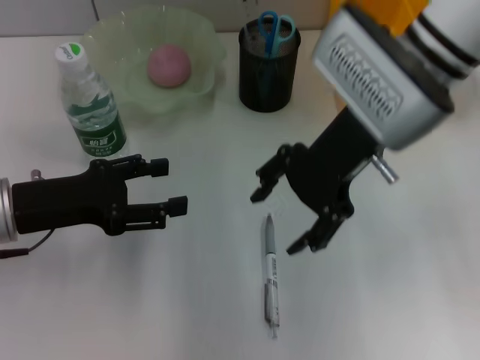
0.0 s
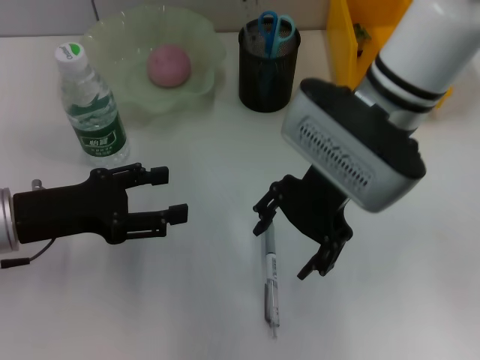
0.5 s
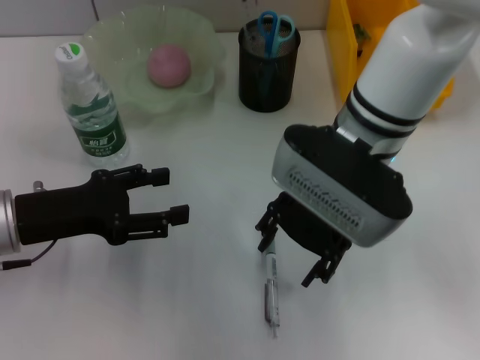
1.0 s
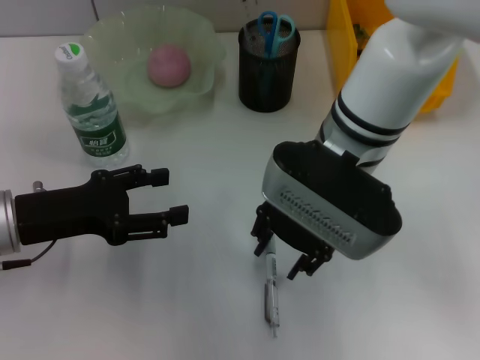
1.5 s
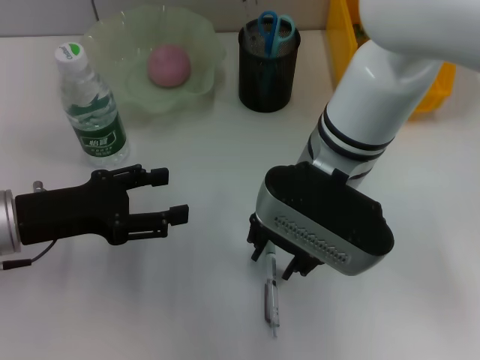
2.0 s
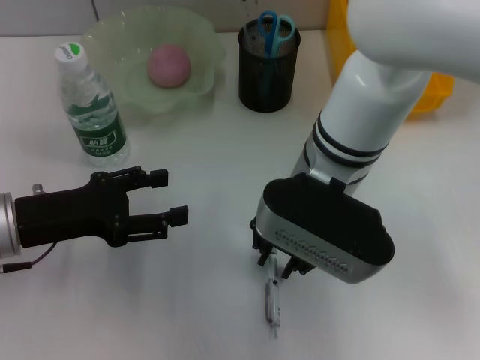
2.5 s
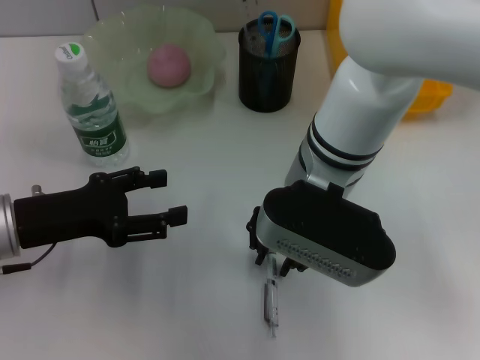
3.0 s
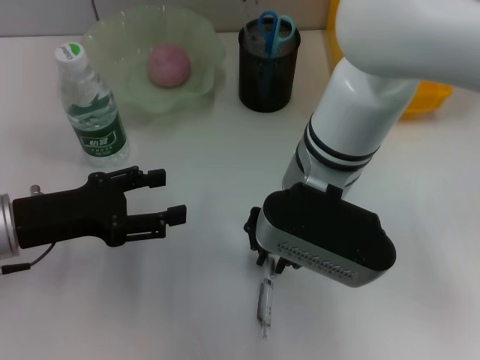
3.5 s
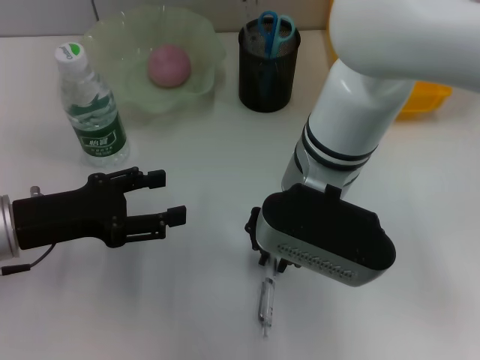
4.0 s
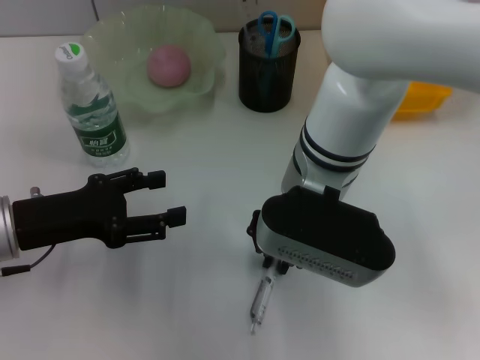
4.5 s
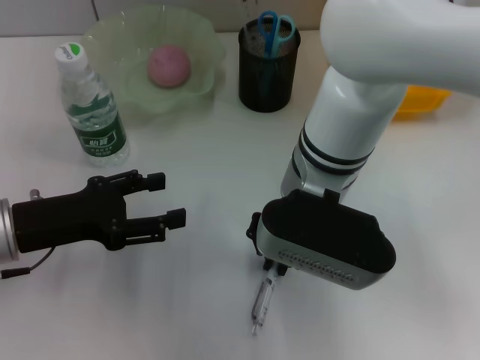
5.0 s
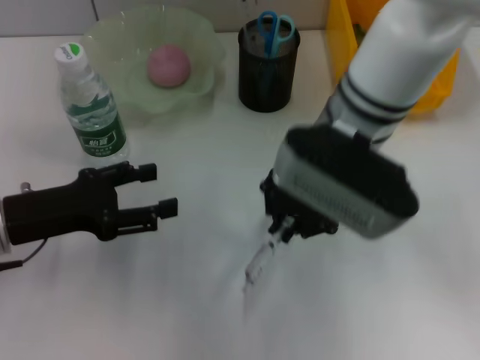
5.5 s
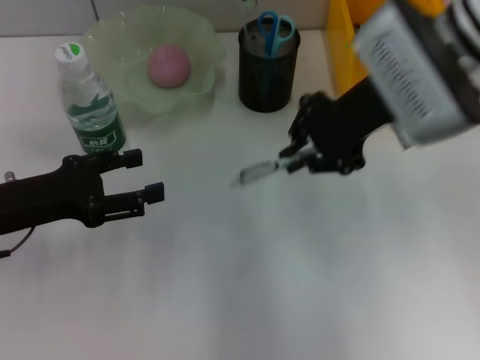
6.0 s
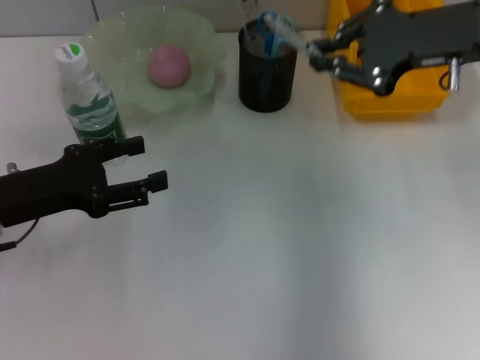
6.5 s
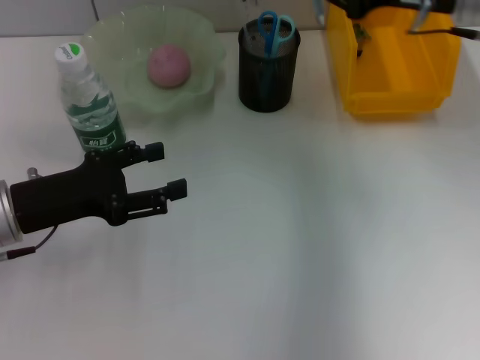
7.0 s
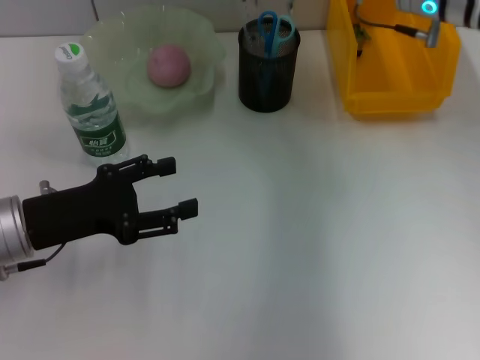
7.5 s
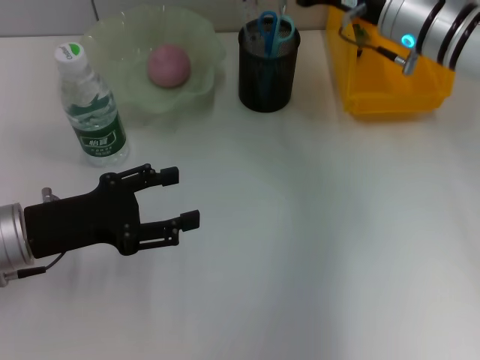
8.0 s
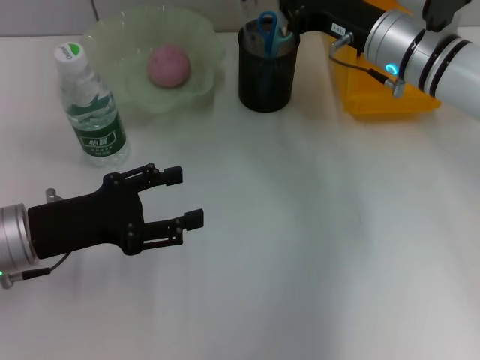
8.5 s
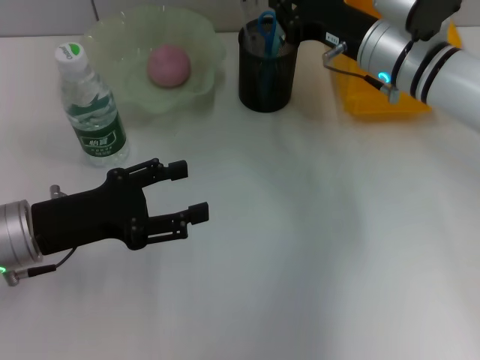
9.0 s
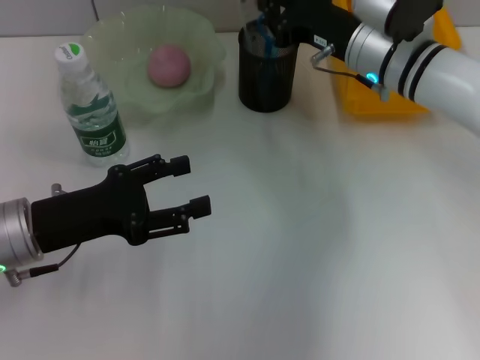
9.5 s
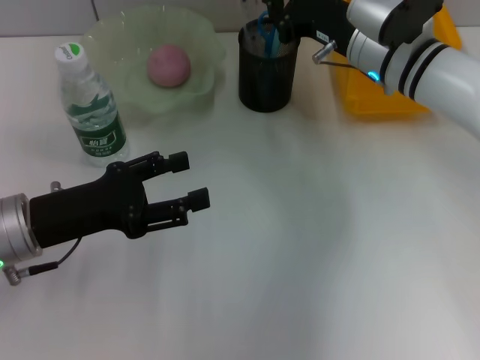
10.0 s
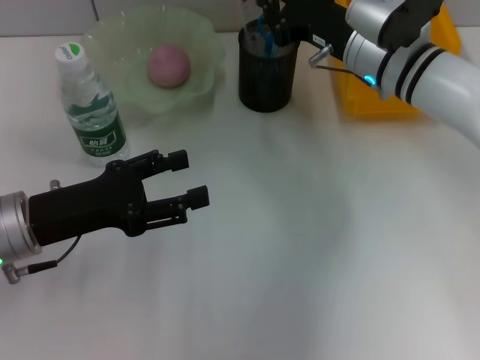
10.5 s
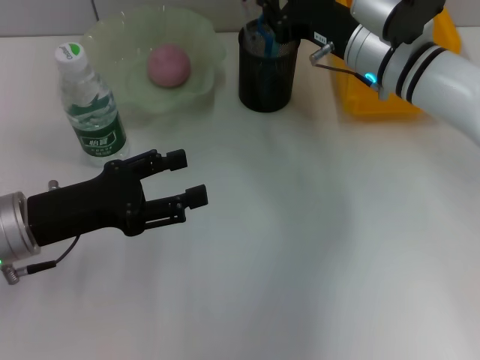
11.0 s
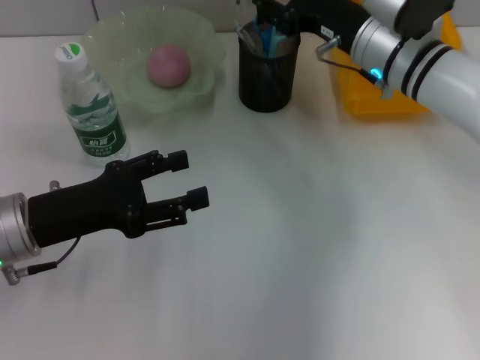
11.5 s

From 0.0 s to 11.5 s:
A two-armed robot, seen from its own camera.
Step, from 0.0 s to 4.5 s: Grab the gray spring-action pen with the right hand.
From 0.0 s to 2.0 s: The right gripper is displaced to the left and downward by approximately 5 cm, and closes.
From 2.0 s to 4.0 s: The right gripper closes up.
From 4.0 s to 6.0 s: The right gripper moves to the right, upward and forward, approximately 15 cm.
From 6.0 s to 7.5 s: The right gripper shifts some 5 cm forward.
From 7.5 s to 9.5 s: The right gripper travels downward by some 5 cm.
From 9.5 s to 11.5 s: The right gripper opens.

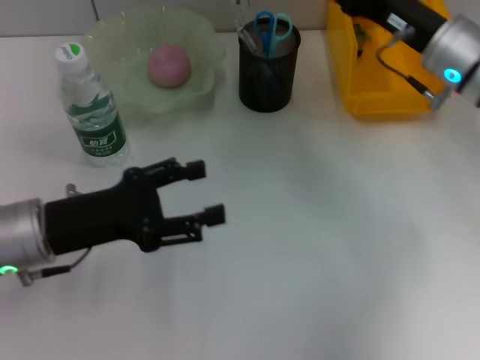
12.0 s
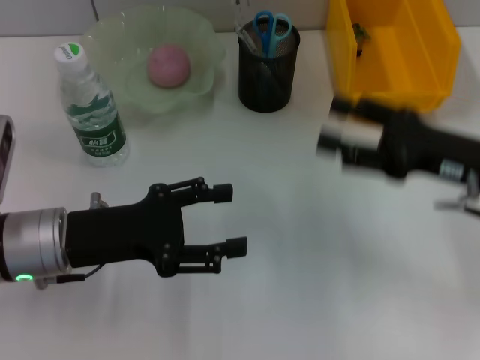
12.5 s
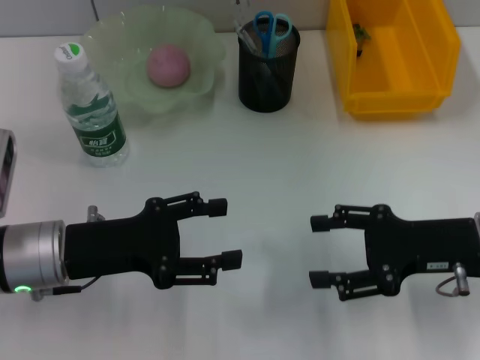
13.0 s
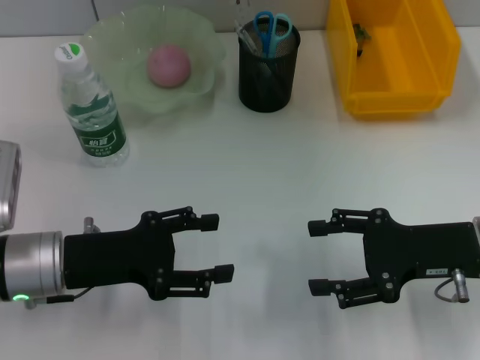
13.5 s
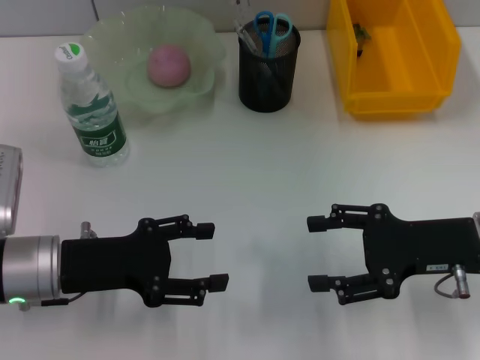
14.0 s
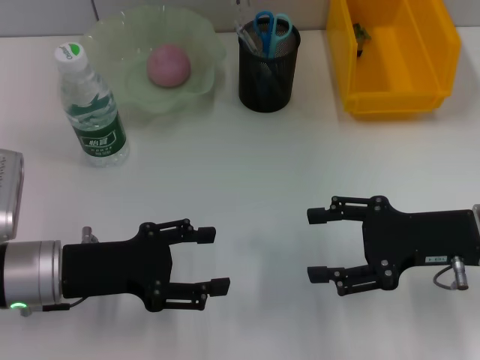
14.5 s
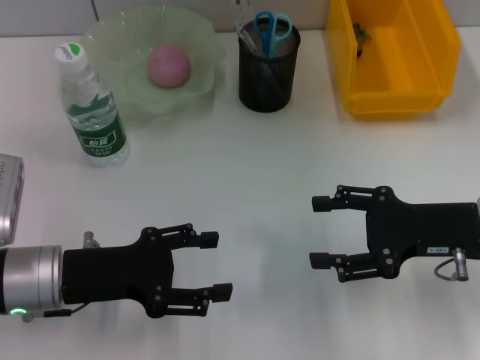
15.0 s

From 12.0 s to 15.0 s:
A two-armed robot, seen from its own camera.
From 12.0 s to 13.5 s: The right gripper goes some 15 cm backward and downward.
From 13.5 s to 15.0 s: Neither gripper changes place.

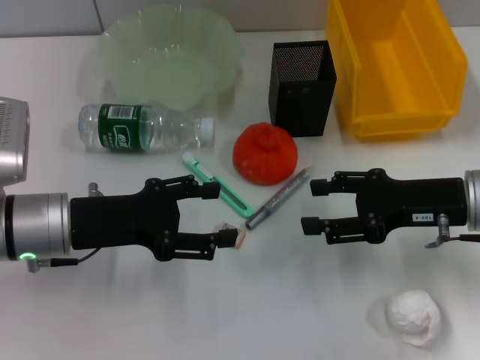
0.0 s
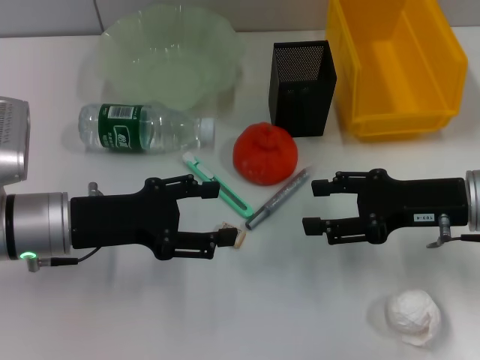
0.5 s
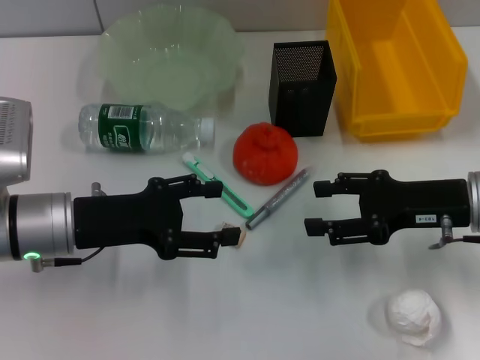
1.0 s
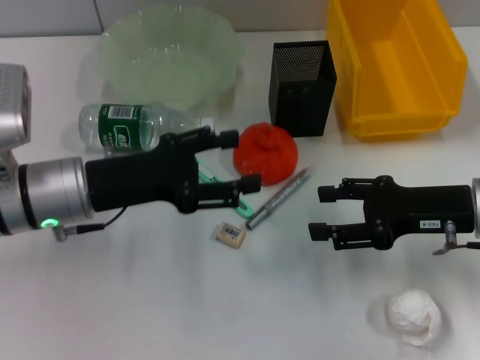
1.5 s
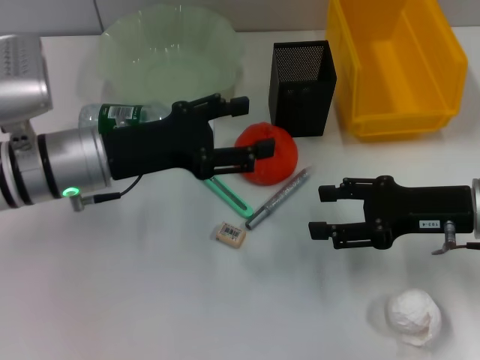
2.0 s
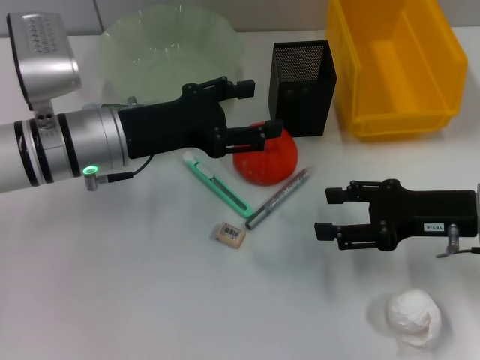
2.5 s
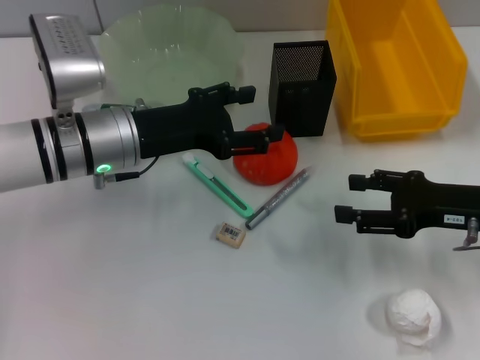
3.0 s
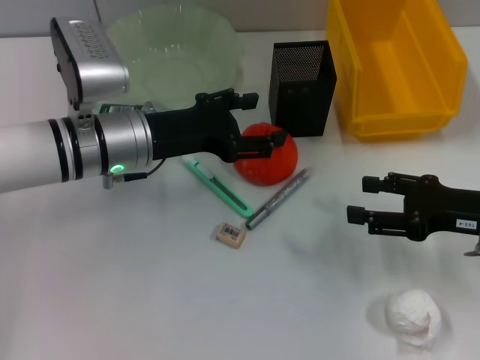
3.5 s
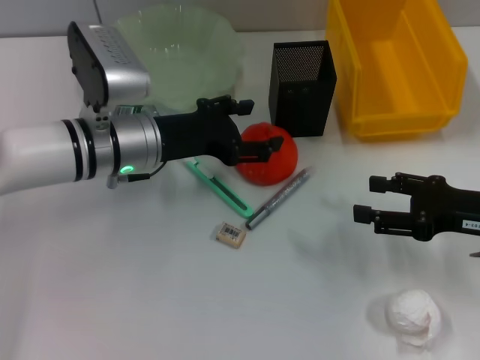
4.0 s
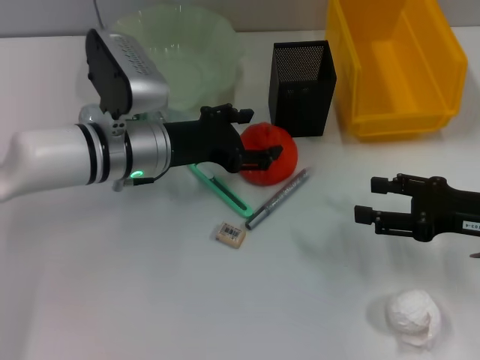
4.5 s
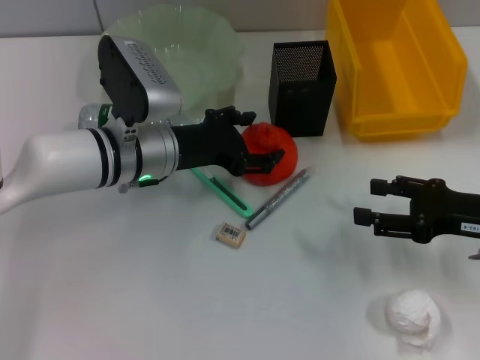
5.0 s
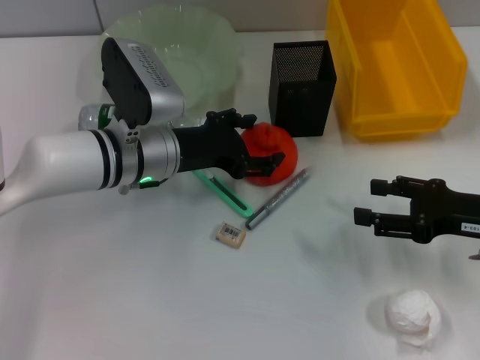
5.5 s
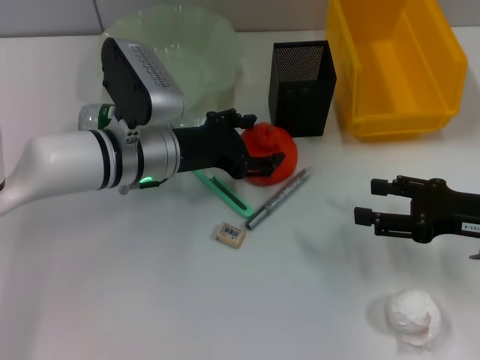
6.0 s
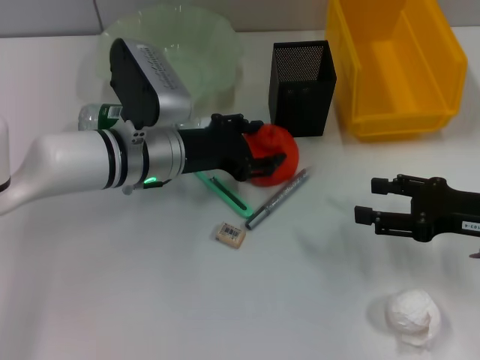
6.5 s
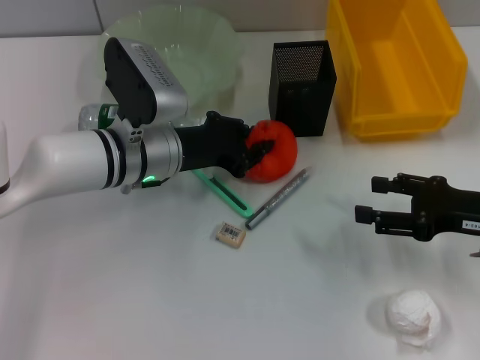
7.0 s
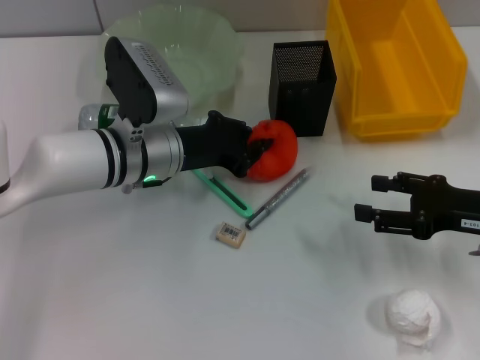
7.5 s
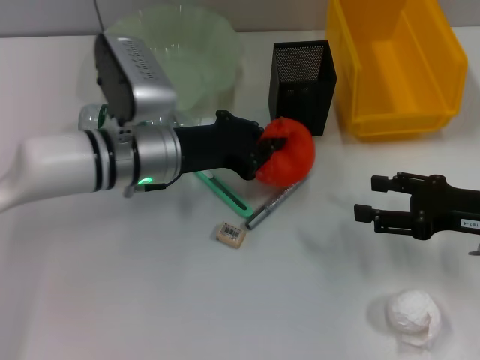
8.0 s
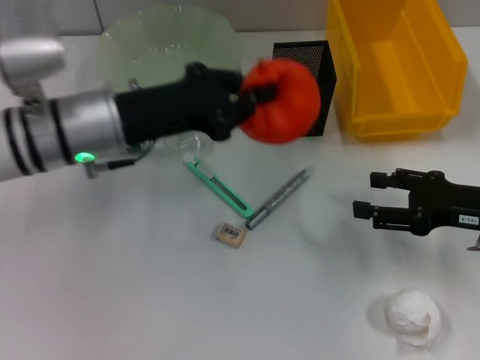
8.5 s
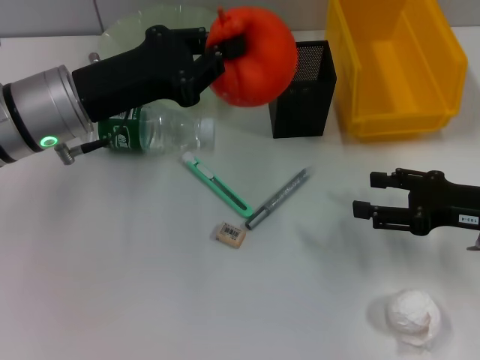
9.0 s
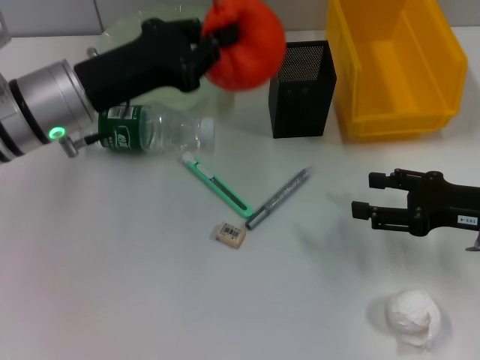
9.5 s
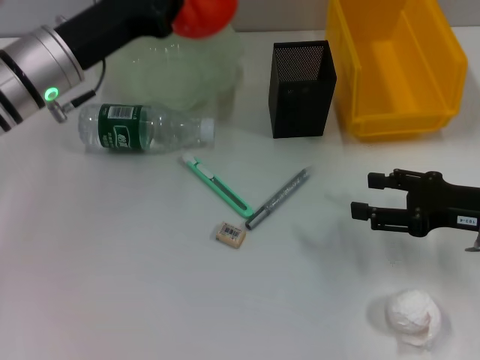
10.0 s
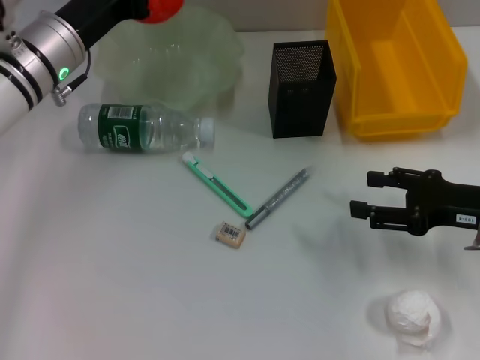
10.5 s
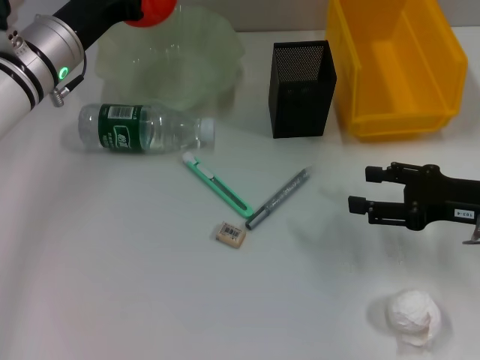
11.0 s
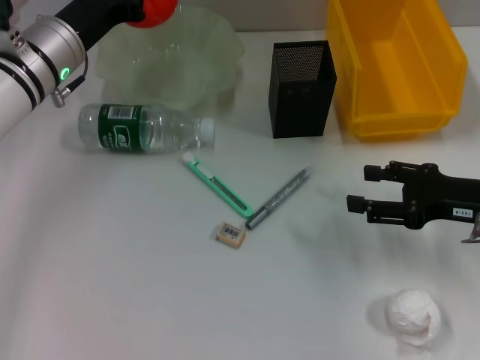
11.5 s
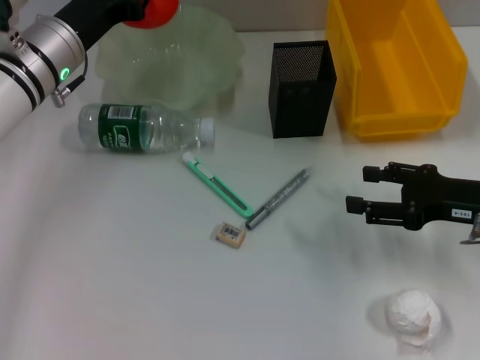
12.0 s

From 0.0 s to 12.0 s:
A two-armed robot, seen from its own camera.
Step, from 0.0 s to 7.5 s: Grab the orange with the left hand.
From 0.0 s to 2.0 s: The left gripper shifts by some 5 cm.
From 2.0 s to 4.0 s: The left gripper changes place by approximately 5 cm.
From 4.0 s to 6.0 s: The grippers make only small movements.
From 6.0 s to 8.0 s: The left gripper closes up.
From 8.0 s to 10.0 s: The left gripper shifts roughly 10 cm to the left and upward.
